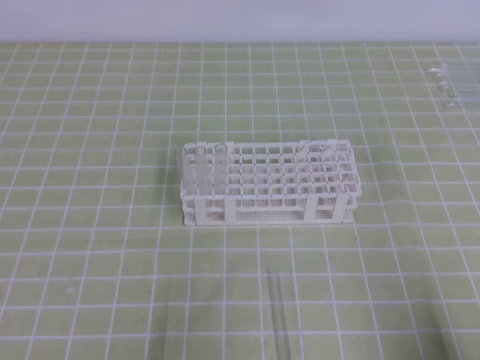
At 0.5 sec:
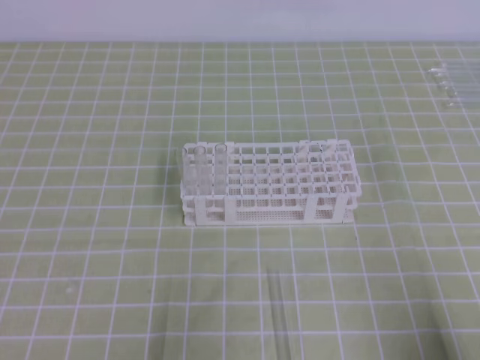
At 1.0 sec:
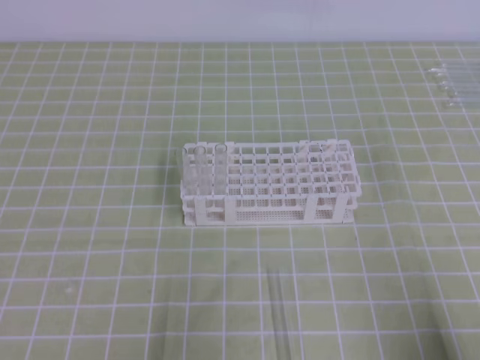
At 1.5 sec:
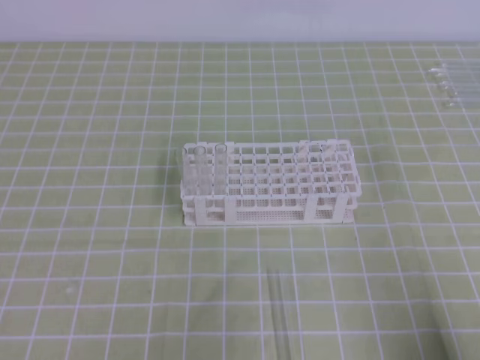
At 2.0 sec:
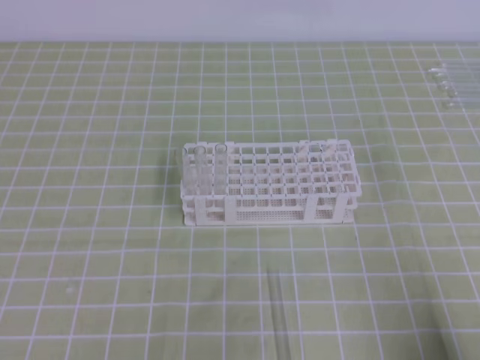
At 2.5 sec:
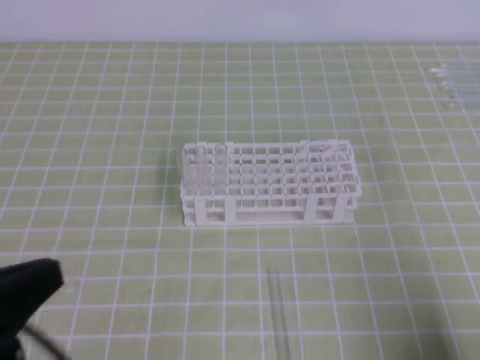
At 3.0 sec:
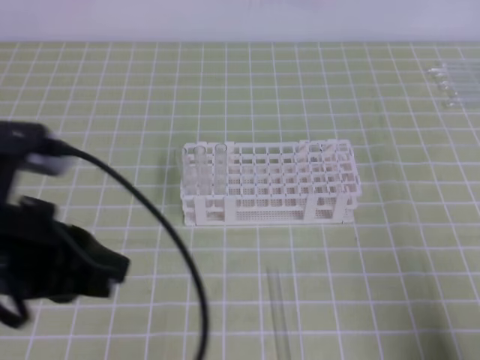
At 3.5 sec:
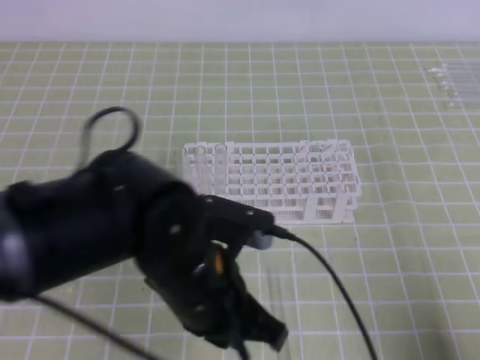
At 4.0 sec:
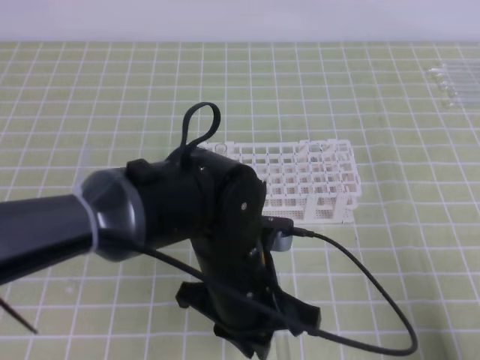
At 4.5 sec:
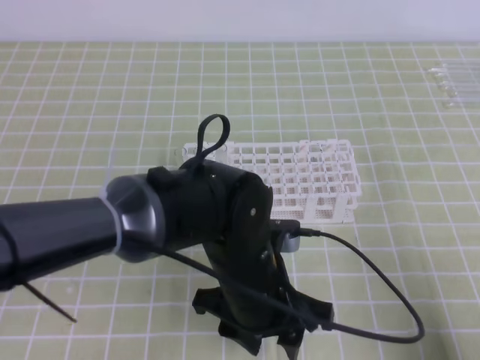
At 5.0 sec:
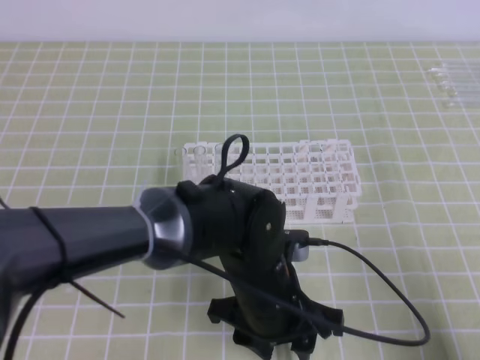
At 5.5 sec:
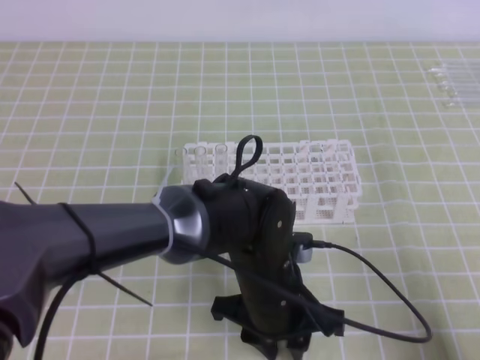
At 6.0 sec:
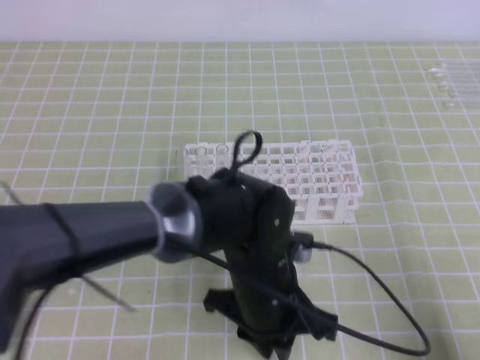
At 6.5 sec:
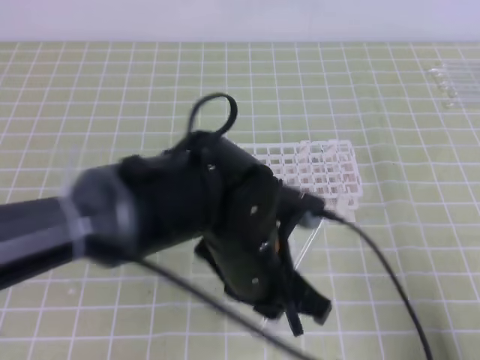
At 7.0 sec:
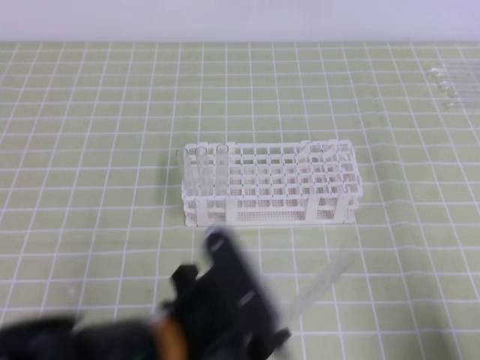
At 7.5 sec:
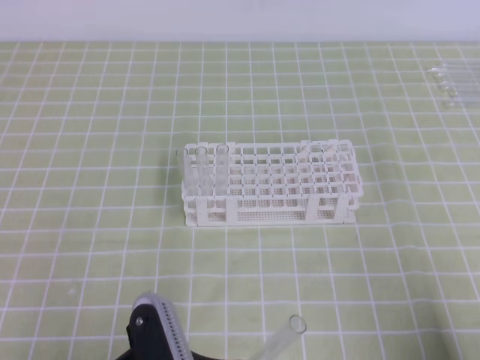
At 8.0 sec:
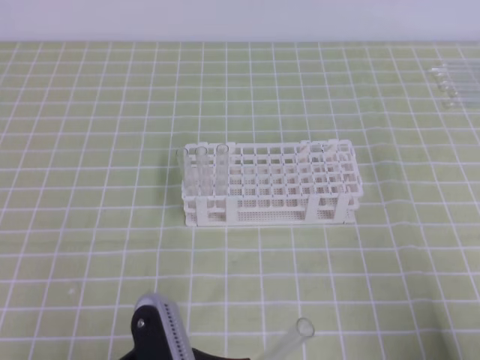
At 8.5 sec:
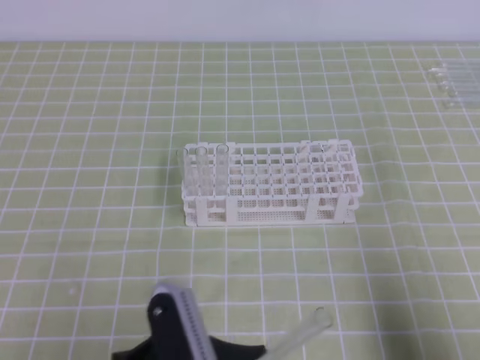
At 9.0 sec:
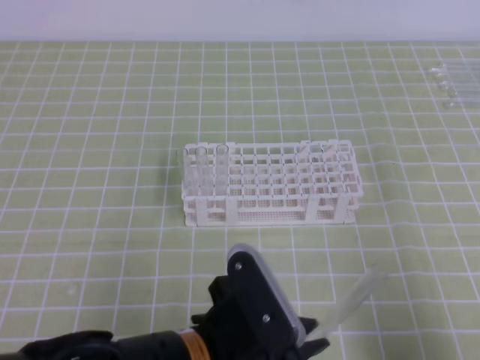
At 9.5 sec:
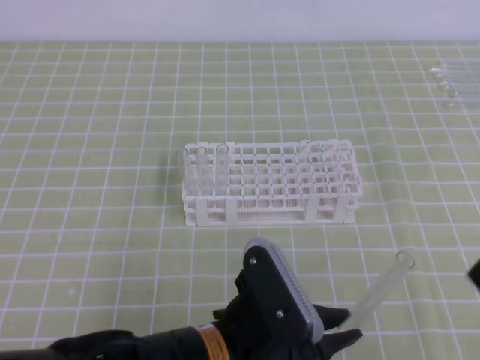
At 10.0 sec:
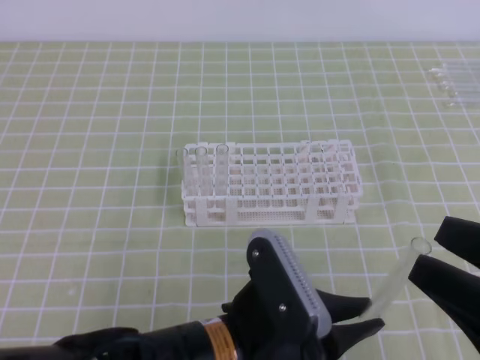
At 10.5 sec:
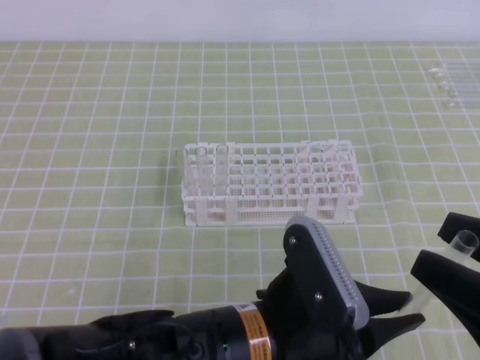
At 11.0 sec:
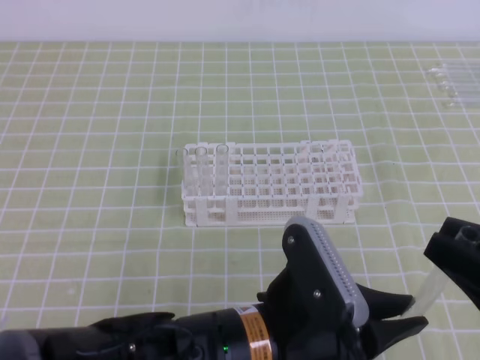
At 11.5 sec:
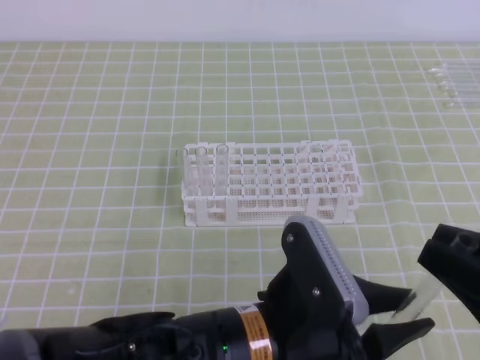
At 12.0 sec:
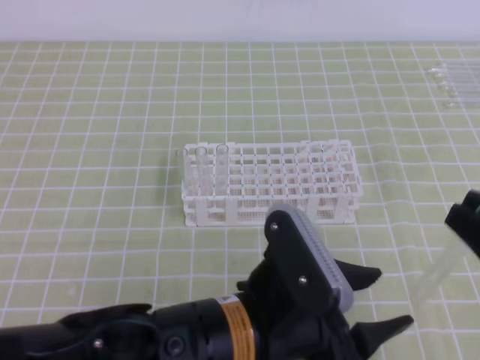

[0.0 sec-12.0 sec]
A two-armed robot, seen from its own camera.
2.0 sec to 4.0 sec: The left gripper moves to the right and forward, roughly 30 cm, and opens.
4.0 sec to 6.0 sec: The left gripper opens, then closes again.
6.0 sec to 8.0 sec: The left gripper goes approximately 20 cm to the left and backward.
8.0 sec to 10.0 sec: The right gripper travels upward and to the left by some 10 cm, and opens up. Meanwhile the left gripper moves to the right, some 10 cm.
10.0 sec to 12.0 sec: The left gripper opens its fingers, while the right gripper closes up.

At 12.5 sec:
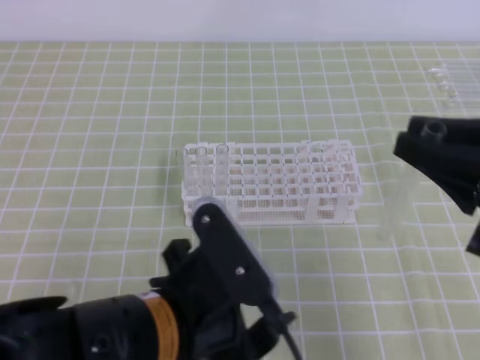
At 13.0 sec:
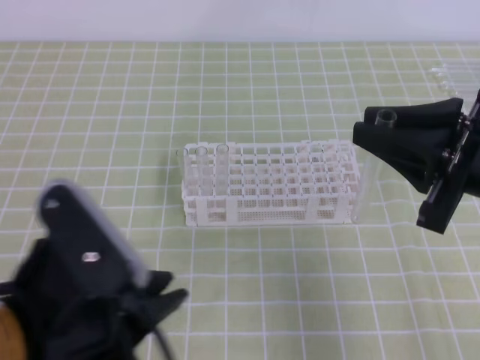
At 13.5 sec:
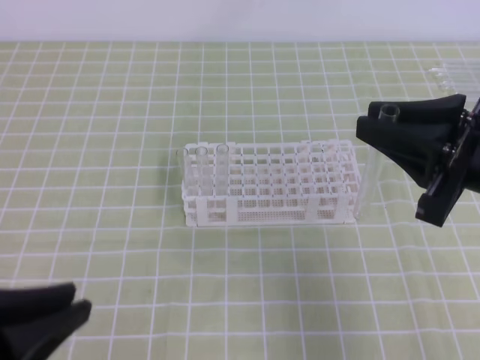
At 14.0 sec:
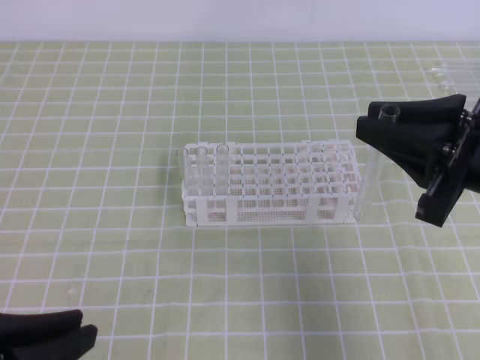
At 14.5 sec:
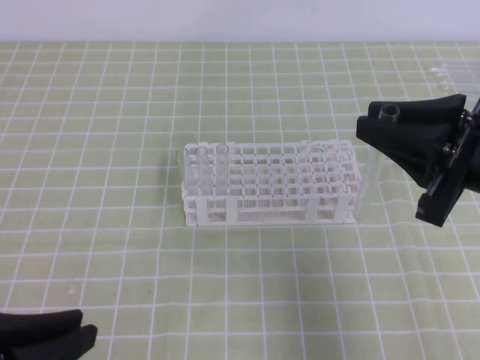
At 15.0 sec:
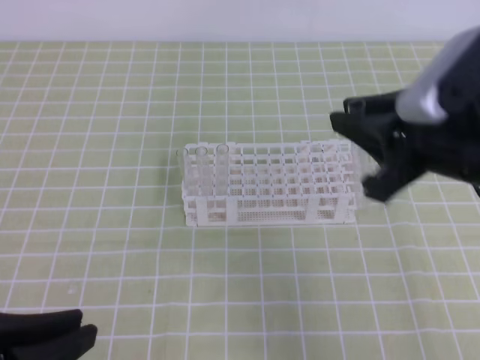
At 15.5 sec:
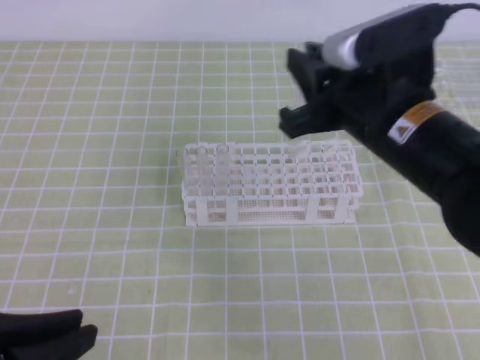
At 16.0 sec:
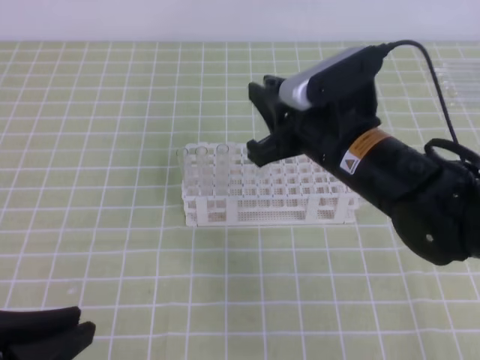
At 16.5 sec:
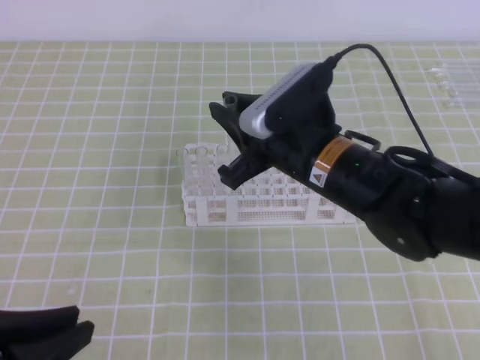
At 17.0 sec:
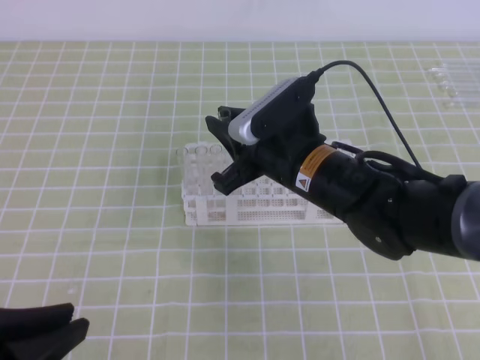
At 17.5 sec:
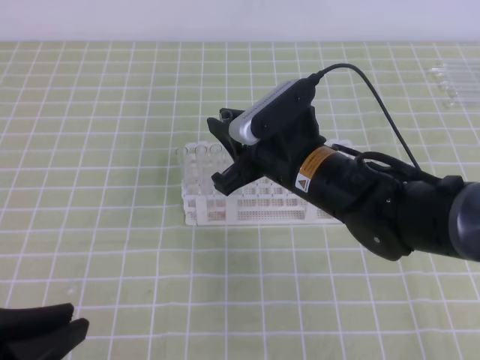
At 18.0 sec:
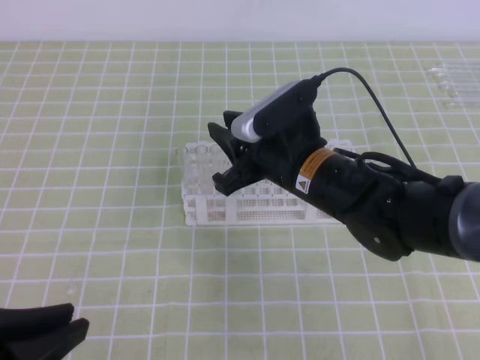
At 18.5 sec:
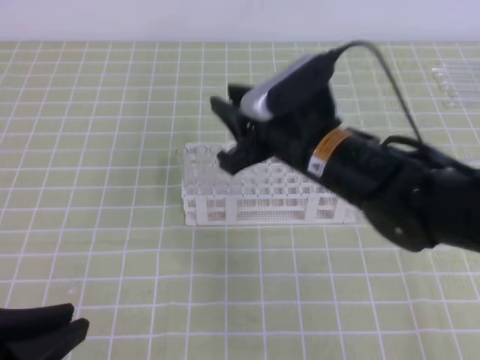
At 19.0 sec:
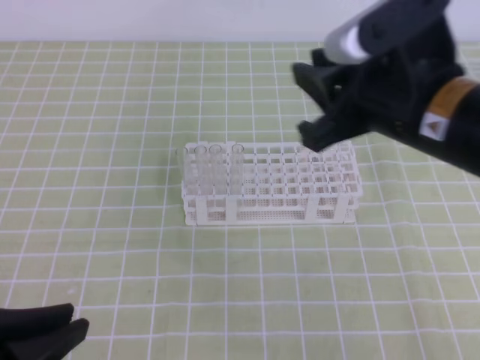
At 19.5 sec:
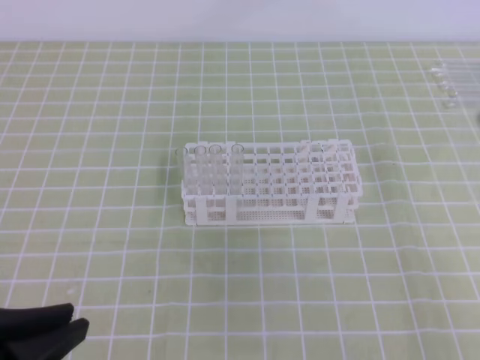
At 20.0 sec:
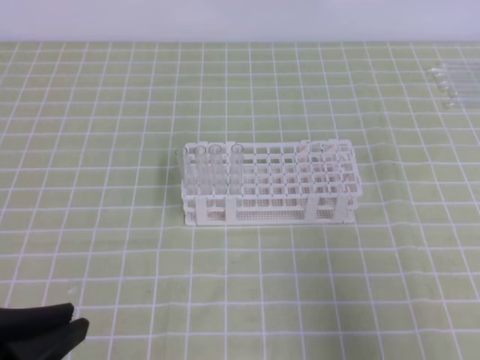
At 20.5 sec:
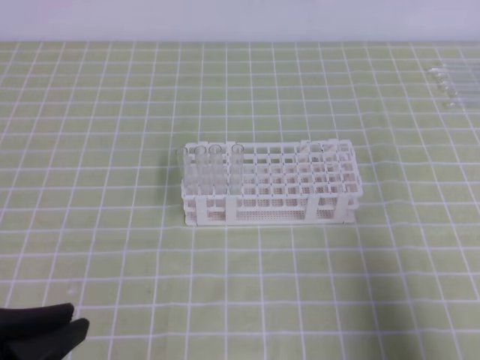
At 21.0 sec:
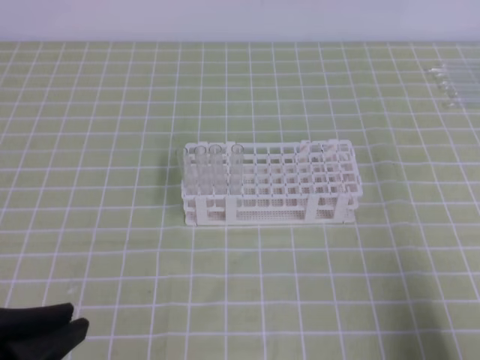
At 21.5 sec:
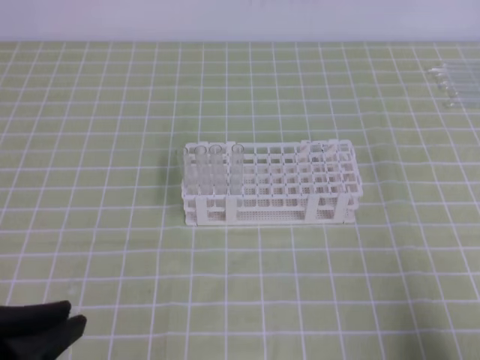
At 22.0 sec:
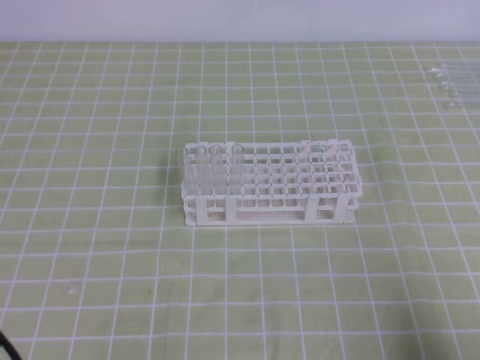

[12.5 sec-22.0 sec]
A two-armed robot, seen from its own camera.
12.5 sec to 14.5 sec: The left gripper shifts some 15 cm to the left, and closes its fingers. The right gripper ends up about 5 cm from where it was.
14.5 sec to 16.5 sec: The right gripper is displaced to the left and forward by roughly 15 cm.
16.5 sec to 18.0 sec: There are only small adjustments of the grippers.
18.0 sec to 20.0 sec: The right gripper goes roughly 35 cm to the right and backward, and closes up.
20.0 sec to 22.0 sec: The right gripper moves downward, about 15 cm.

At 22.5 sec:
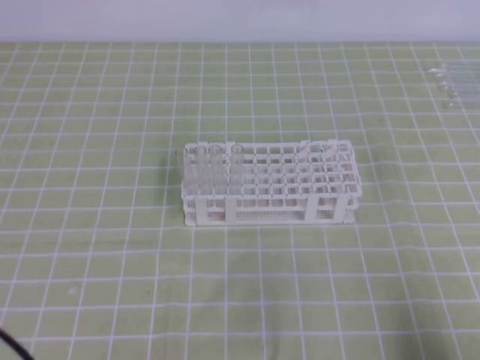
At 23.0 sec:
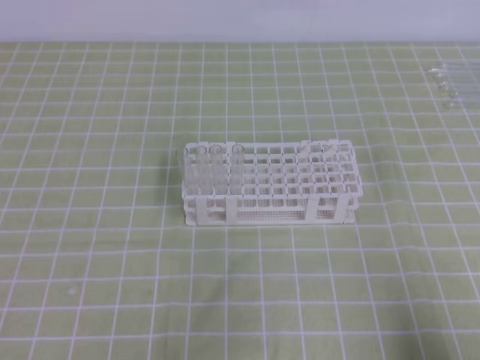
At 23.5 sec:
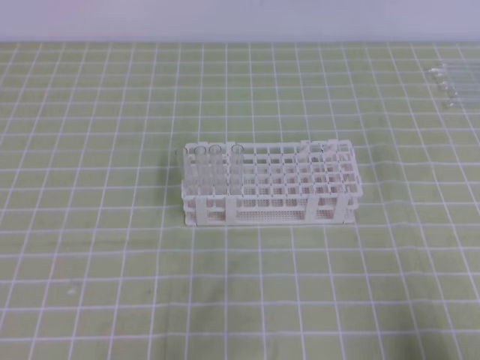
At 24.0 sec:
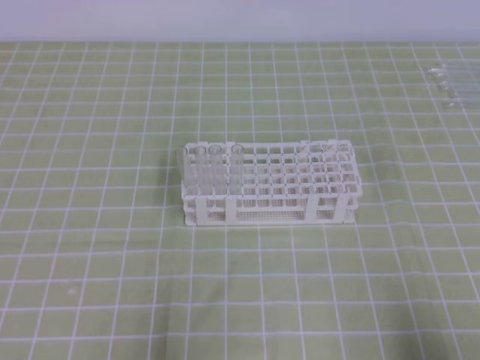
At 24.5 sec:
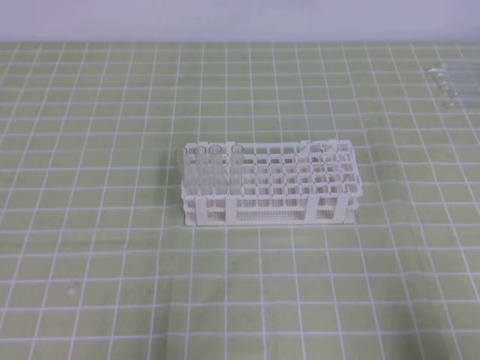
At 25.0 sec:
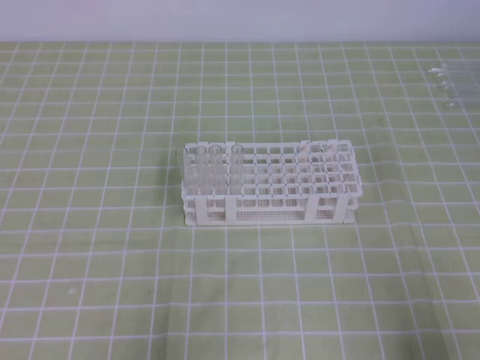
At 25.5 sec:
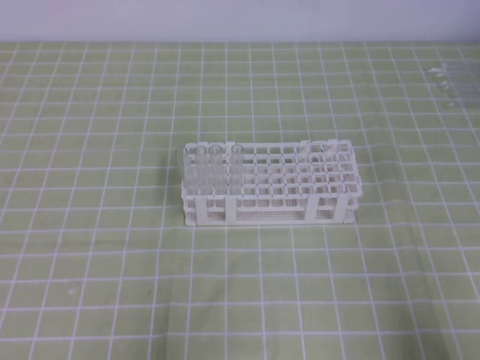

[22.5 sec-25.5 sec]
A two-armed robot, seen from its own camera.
24.0 sec to 25.5 sec: Neither gripper changes place.
